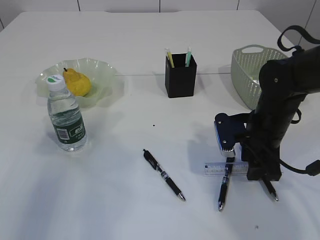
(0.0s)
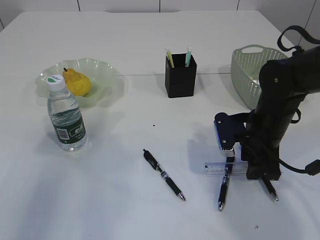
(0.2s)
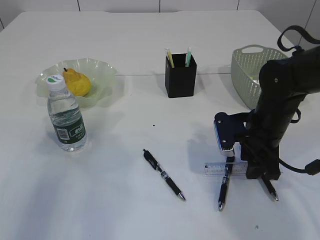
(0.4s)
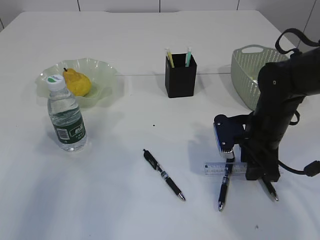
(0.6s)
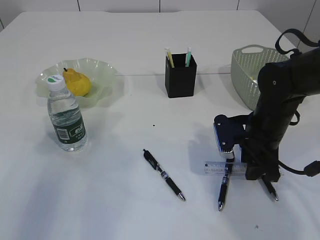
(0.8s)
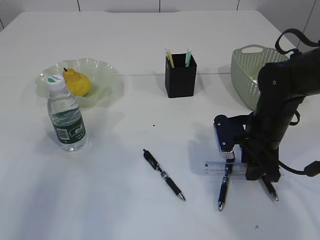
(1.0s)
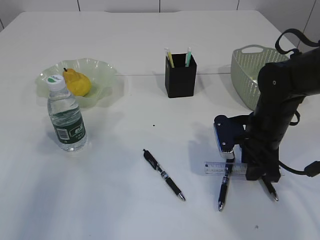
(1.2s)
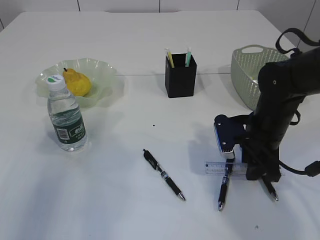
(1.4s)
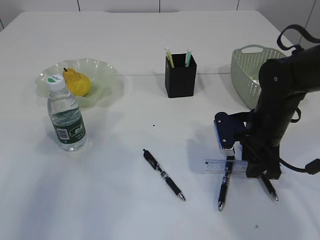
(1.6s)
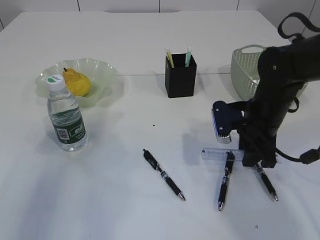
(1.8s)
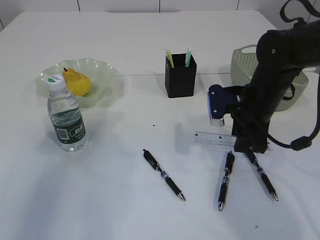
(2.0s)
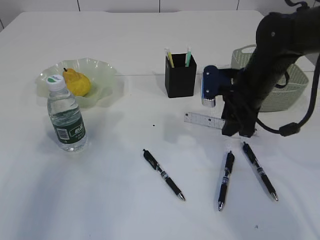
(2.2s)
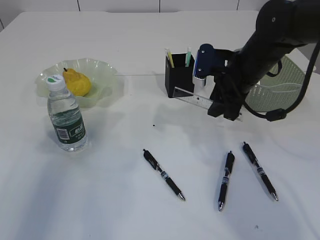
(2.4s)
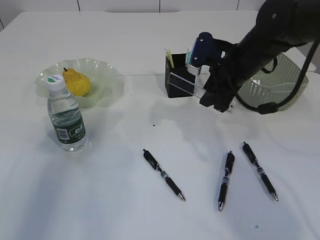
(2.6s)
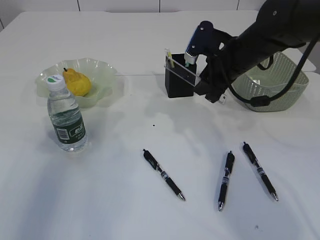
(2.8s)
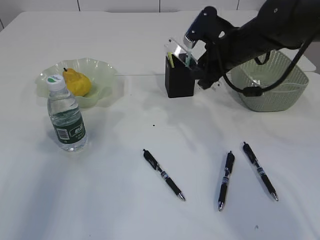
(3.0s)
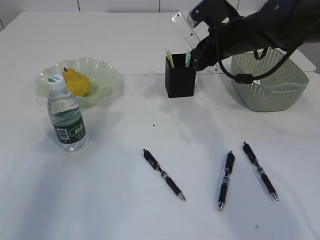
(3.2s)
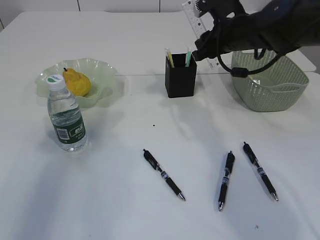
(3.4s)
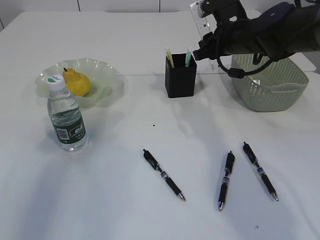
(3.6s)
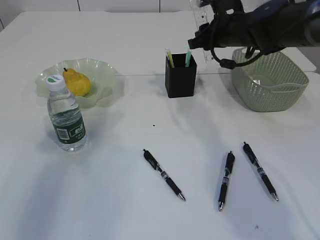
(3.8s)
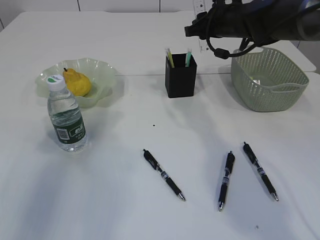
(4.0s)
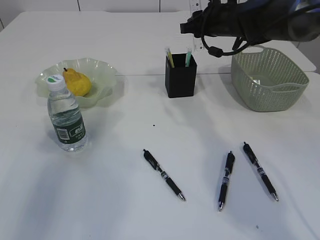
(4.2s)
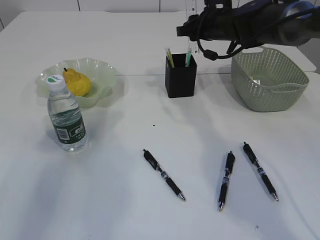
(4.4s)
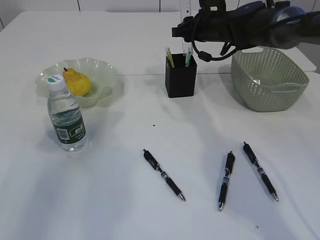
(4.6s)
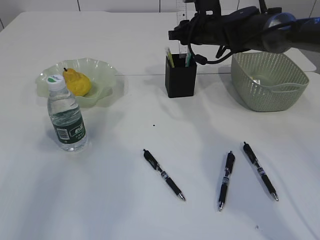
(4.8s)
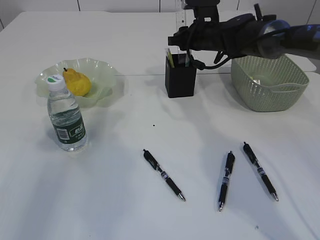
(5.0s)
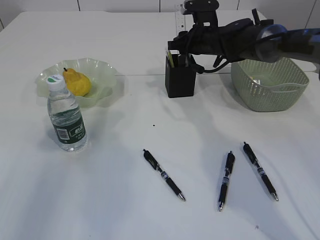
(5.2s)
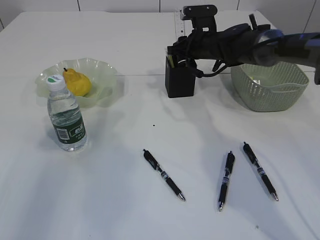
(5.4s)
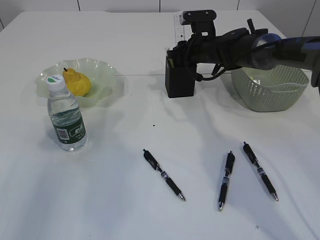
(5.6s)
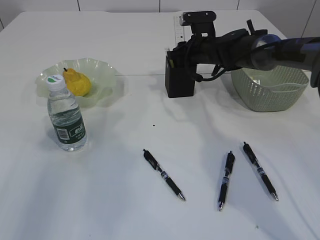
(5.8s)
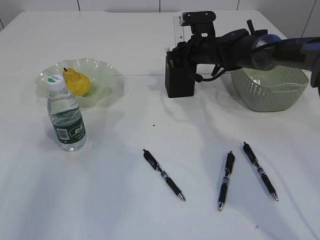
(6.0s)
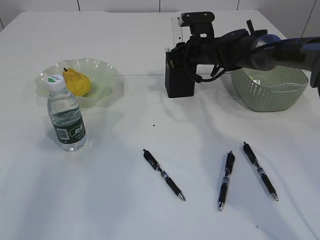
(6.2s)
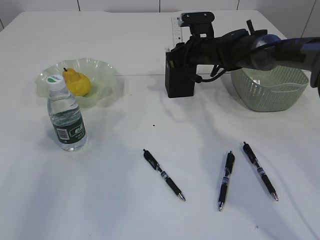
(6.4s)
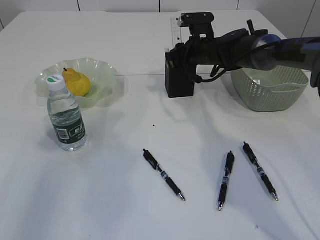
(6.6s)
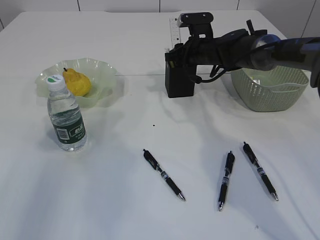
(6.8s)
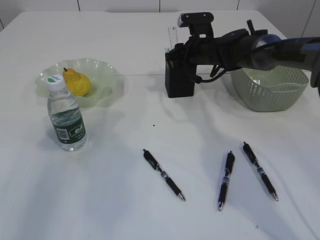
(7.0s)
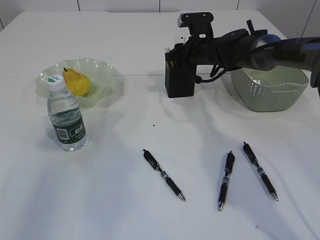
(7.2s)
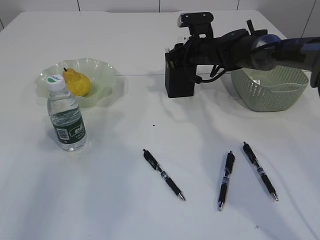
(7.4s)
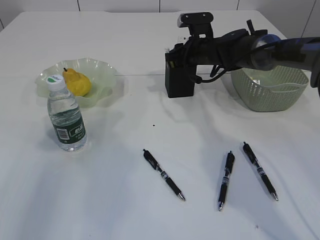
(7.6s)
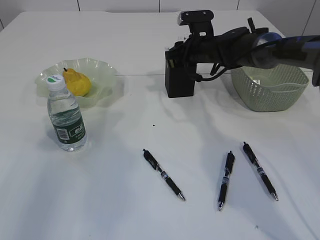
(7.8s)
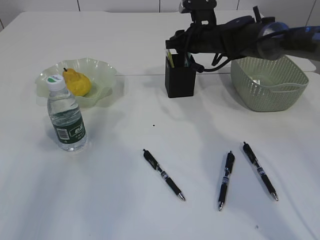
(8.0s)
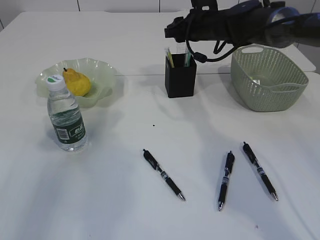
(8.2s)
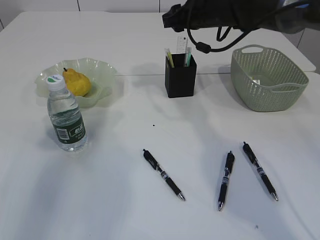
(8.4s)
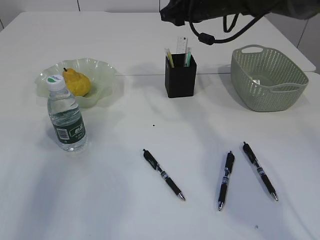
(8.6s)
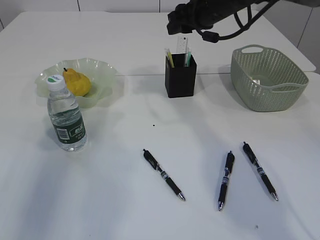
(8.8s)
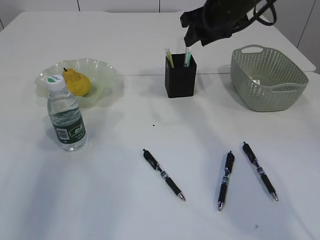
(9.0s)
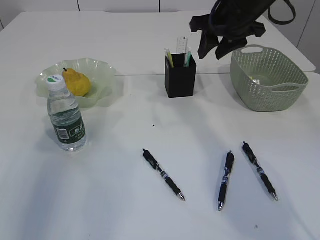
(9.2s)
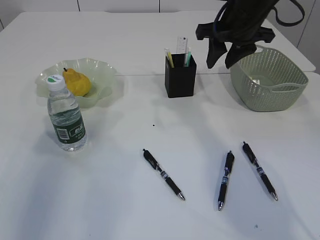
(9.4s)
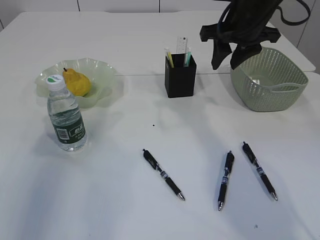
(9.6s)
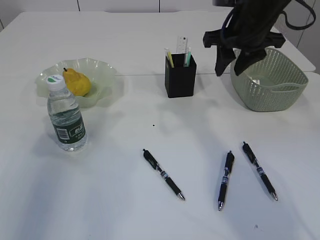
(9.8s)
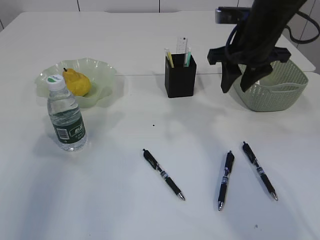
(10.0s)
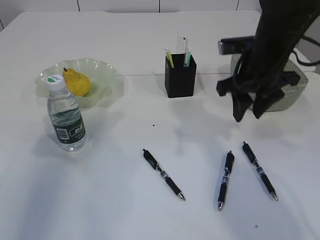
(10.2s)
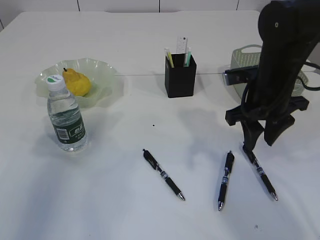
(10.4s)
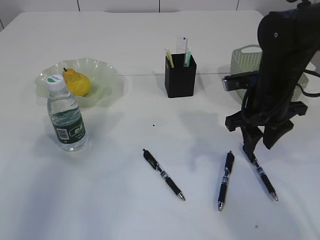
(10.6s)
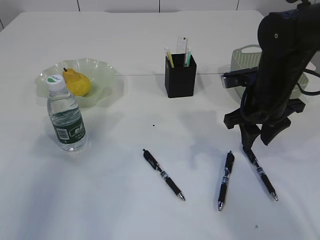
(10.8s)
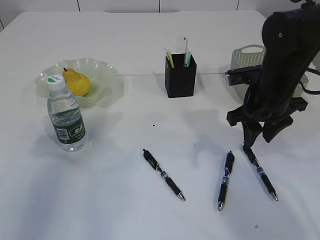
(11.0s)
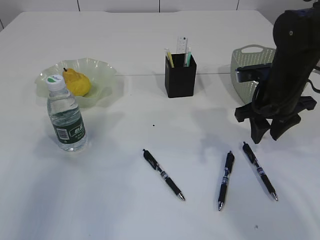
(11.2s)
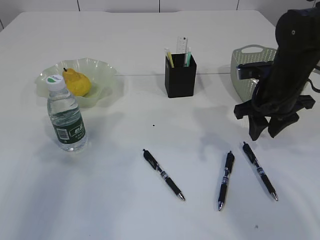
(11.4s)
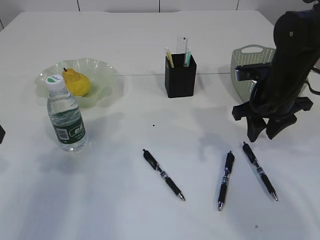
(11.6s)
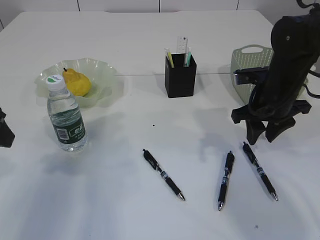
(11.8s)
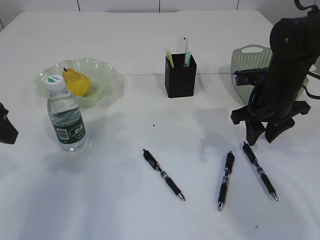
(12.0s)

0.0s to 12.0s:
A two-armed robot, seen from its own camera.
Step, 2.0s to 8.2s: Place the ruler into the pen holder.
0.0s to 1.6s: The two grippers keep their place.
1.6s to 3.0s: The right gripper moves upward and forward, about 15 cm.
3.0s to 4.4s: The right gripper shifts some 10 cm forward.
4.4s to 6.0s: The right gripper heads downward, covering about 5 cm.
6.0s to 7.6s: Neither gripper changes place.
7.6s to 9.0s: The right gripper is displaced upward and backward by some 15 cm.
9.0s to 10.4s: The right gripper travels backward and downward by roughly 15 cm.
10.4s to 12.0s: The left gripper changes place by roughly 5 cm.

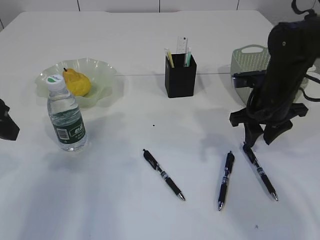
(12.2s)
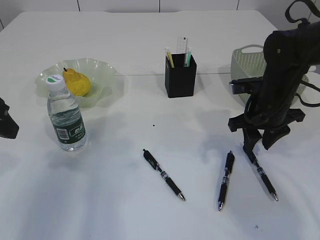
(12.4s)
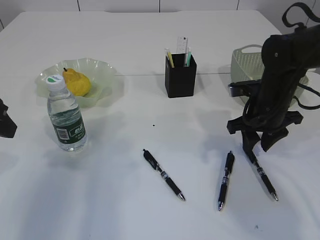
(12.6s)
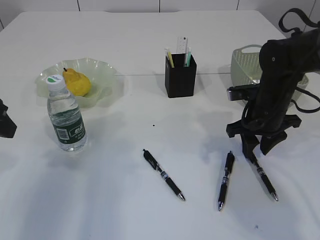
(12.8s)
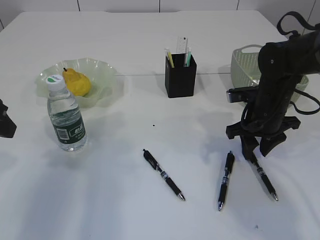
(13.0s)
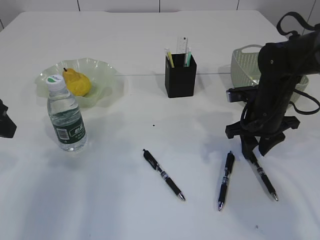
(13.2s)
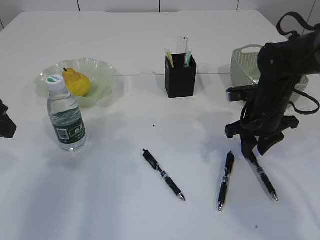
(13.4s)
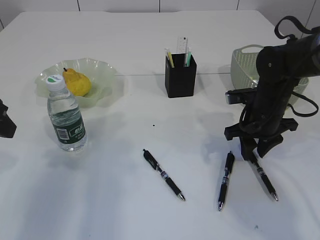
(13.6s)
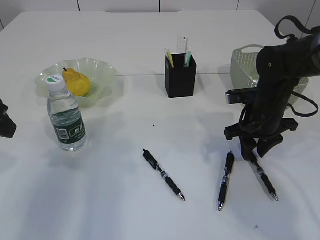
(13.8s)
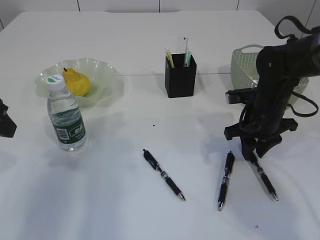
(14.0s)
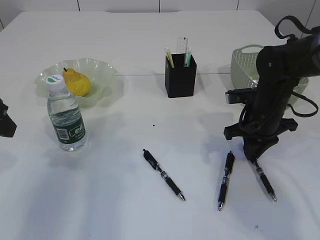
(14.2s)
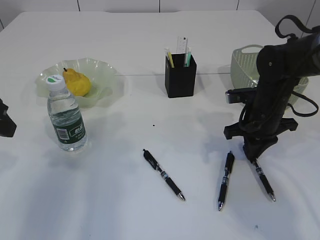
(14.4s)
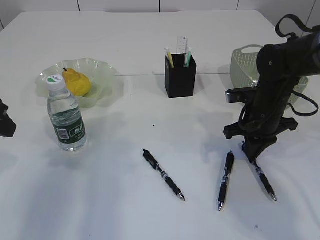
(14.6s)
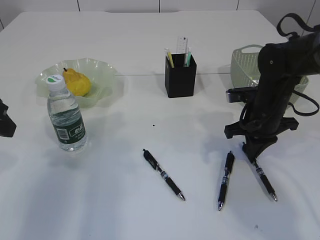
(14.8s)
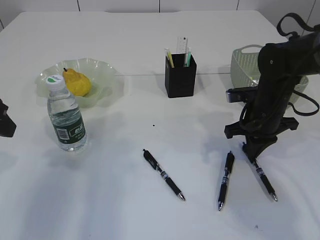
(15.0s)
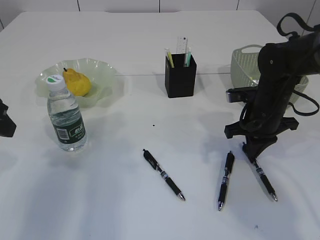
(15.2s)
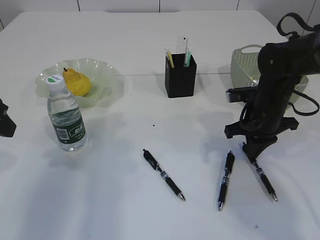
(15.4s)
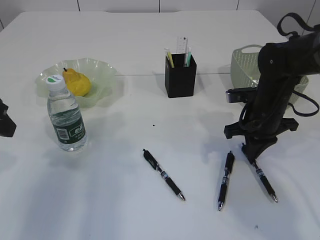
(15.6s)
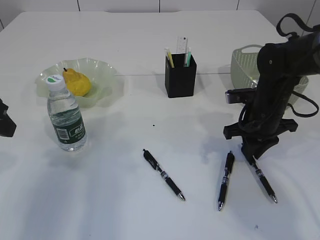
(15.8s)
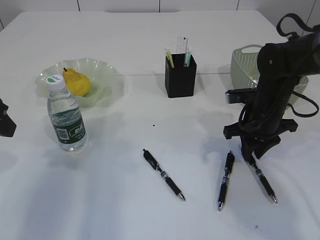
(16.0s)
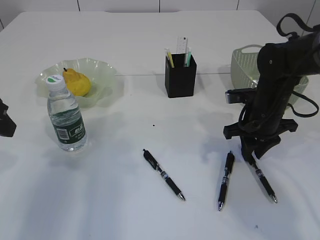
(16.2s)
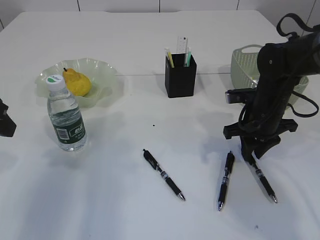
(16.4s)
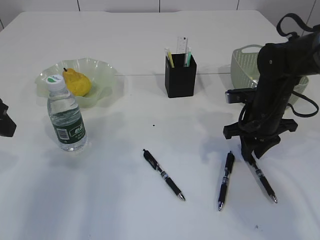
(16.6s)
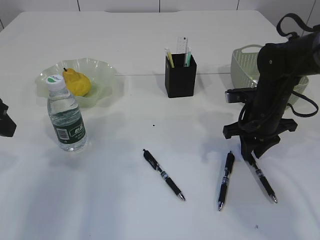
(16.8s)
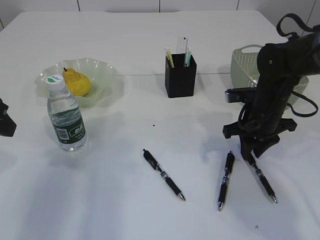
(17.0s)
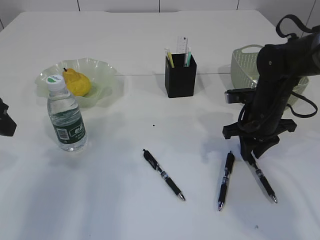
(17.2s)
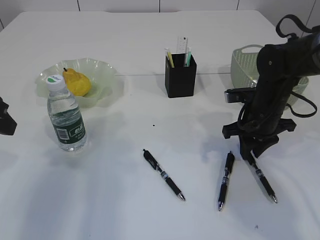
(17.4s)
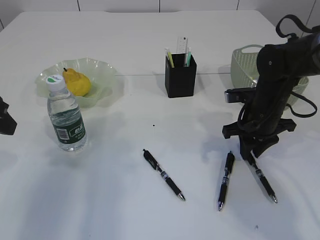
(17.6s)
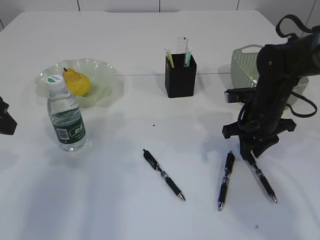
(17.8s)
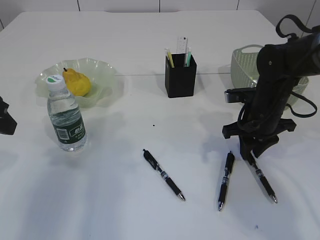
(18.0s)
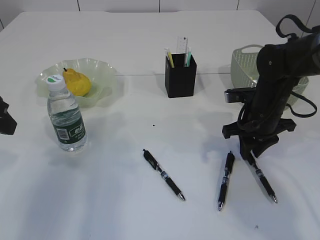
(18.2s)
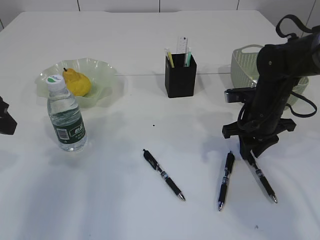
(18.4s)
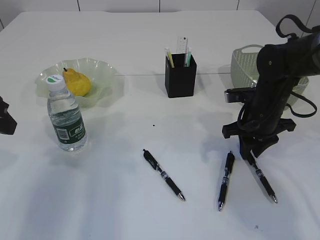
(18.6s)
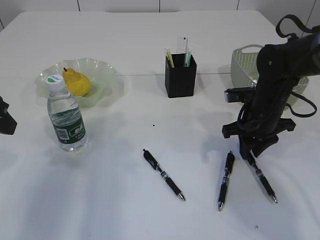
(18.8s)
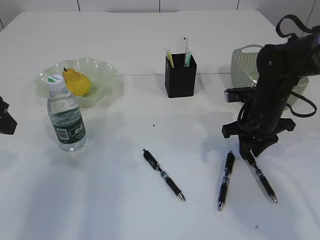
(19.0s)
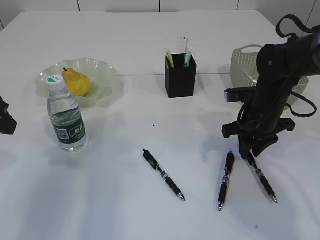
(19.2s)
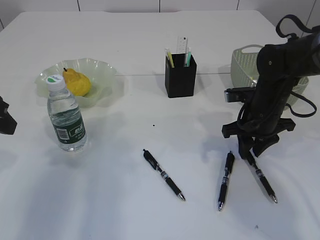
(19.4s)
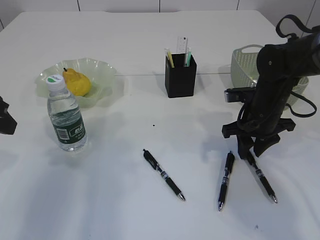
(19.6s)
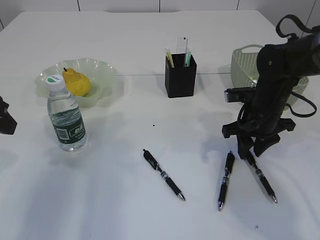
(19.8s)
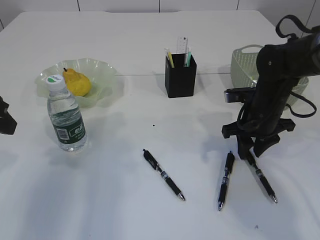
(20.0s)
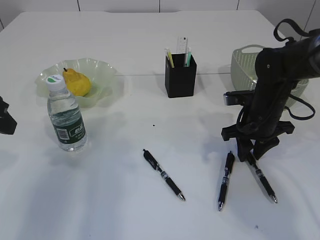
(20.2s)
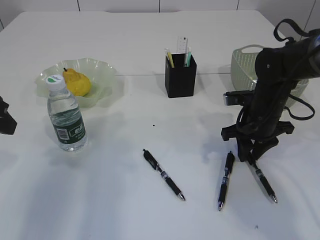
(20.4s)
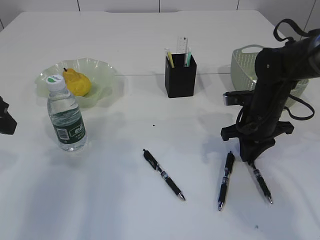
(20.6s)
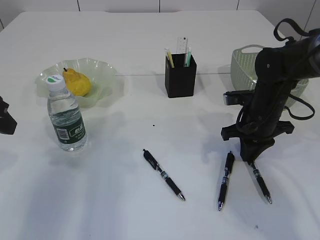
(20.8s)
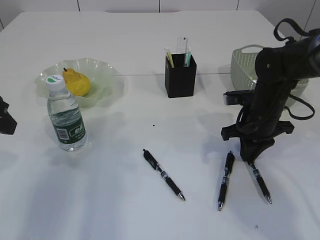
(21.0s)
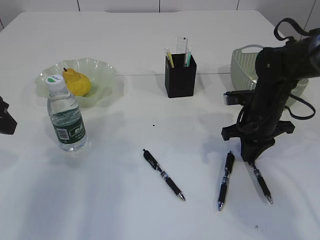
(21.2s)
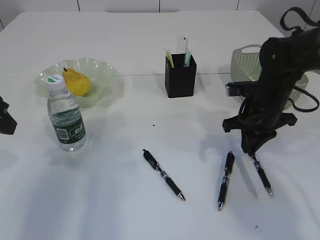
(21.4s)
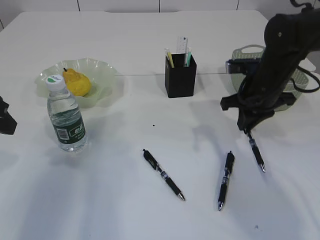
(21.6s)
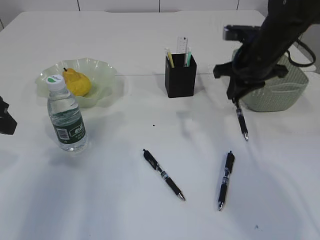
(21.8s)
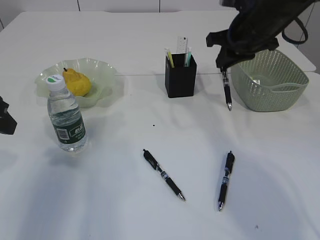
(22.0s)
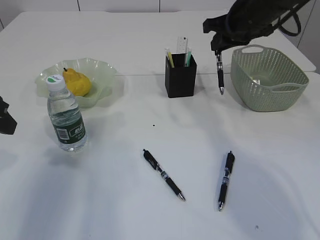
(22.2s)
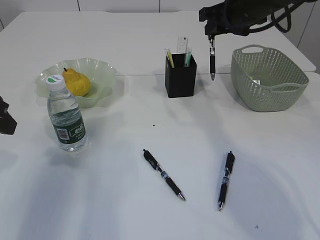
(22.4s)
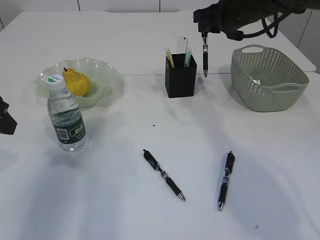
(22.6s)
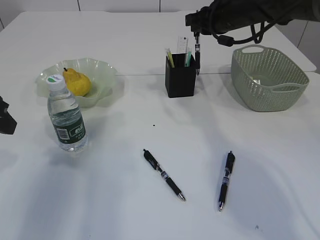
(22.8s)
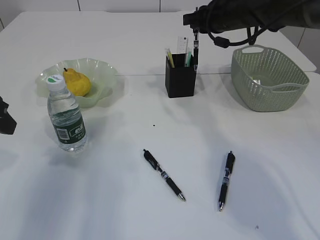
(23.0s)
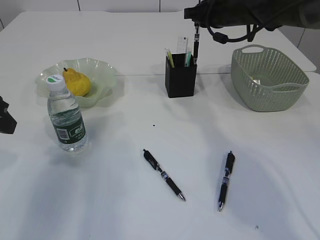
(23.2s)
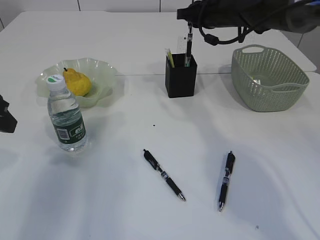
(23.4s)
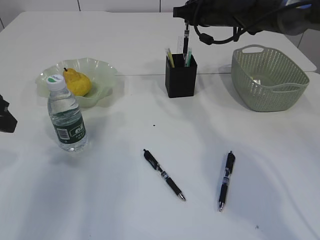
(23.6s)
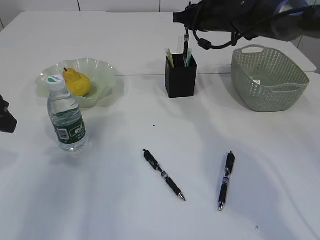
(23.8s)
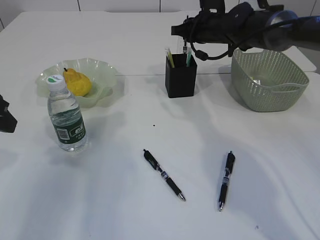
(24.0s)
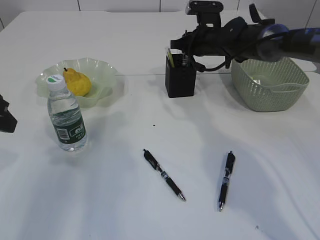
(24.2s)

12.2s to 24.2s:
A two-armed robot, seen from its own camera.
Step, 12.2s to 21.4s: Pick up the pen with right arm.
12.2s to 13.8s: The grippers move only a little.
13.8s to 15.2s: The right gripper closes.
15.2s to 19.8s: Neither gripper changes place.
19.8s to 21.2s: The right gripper closes.
21.2s to 22.6s: The right gripper moves upward and forward, roughly 20 cm.
22.6s to 24.2s: The right gripper moves downward and forward, roughly 10 cm.
